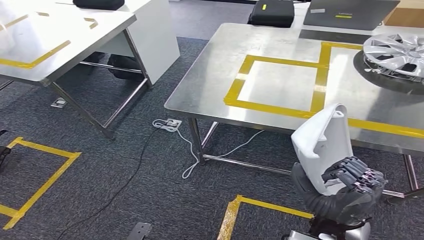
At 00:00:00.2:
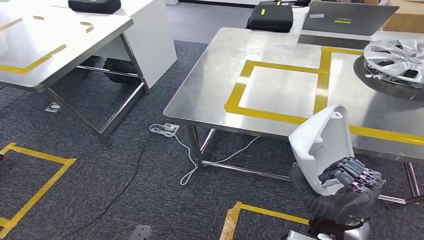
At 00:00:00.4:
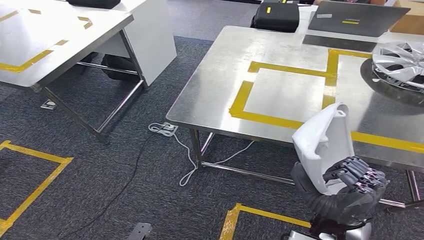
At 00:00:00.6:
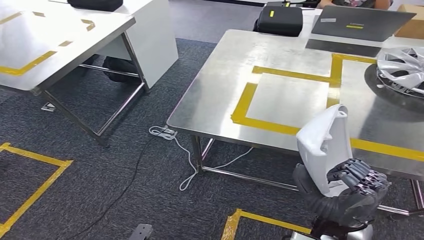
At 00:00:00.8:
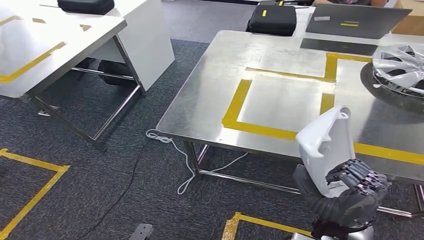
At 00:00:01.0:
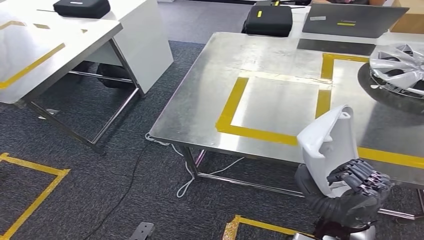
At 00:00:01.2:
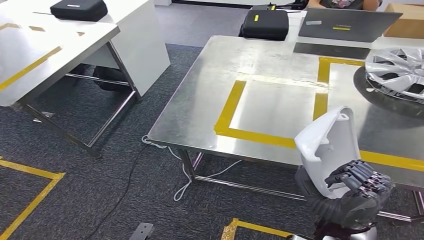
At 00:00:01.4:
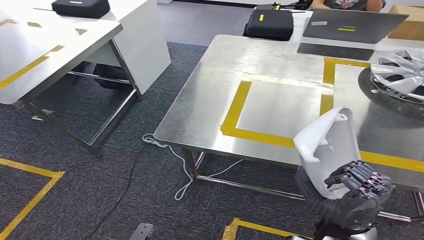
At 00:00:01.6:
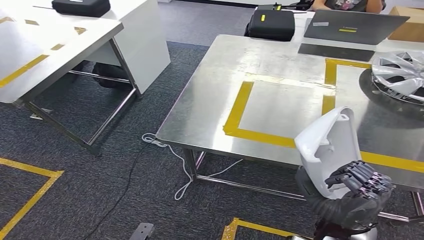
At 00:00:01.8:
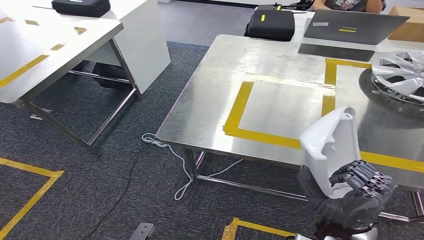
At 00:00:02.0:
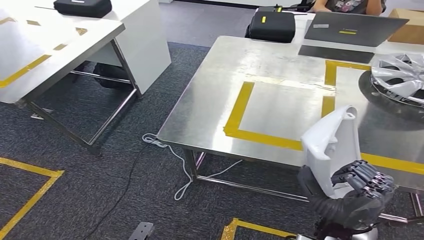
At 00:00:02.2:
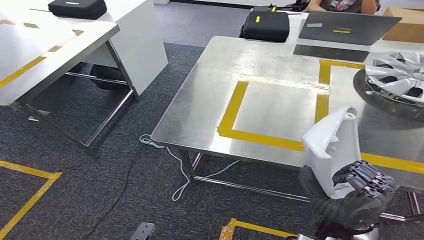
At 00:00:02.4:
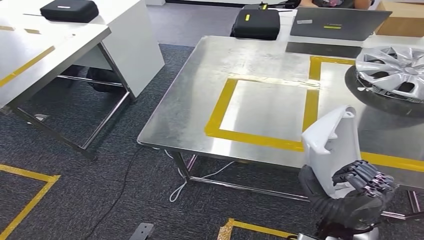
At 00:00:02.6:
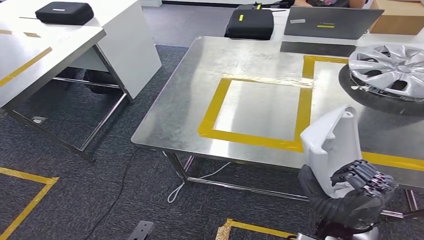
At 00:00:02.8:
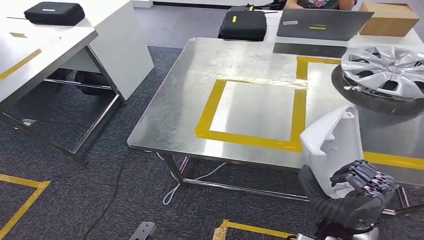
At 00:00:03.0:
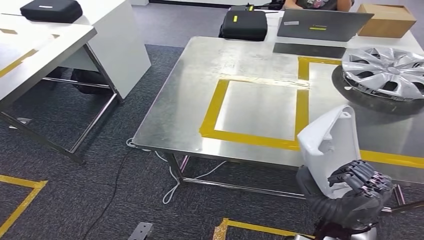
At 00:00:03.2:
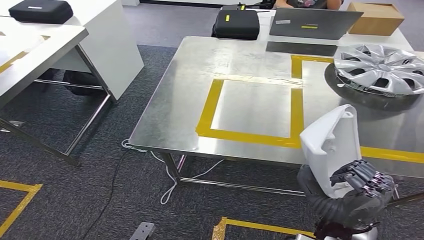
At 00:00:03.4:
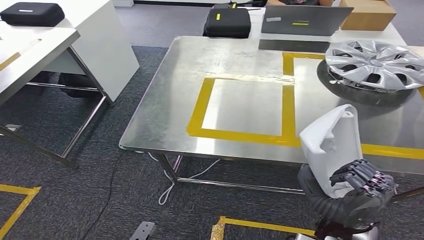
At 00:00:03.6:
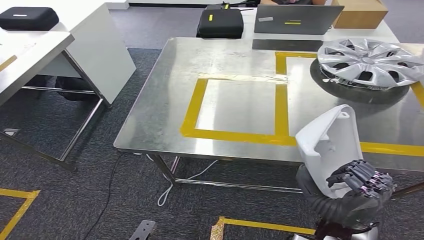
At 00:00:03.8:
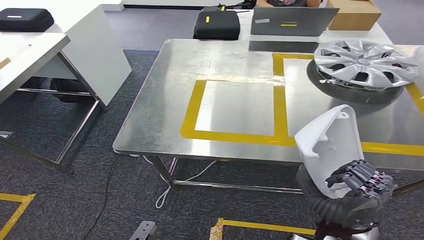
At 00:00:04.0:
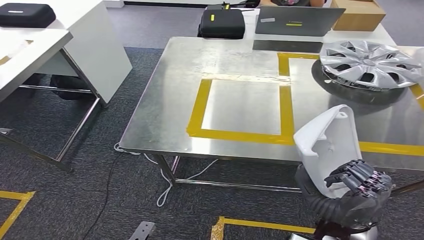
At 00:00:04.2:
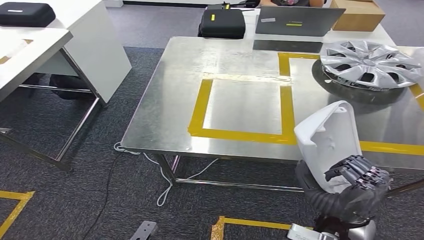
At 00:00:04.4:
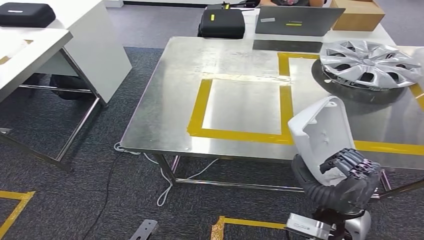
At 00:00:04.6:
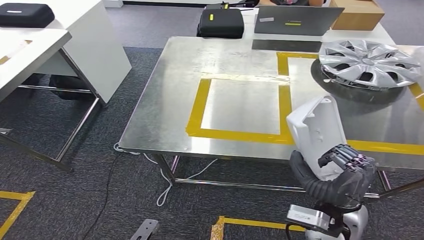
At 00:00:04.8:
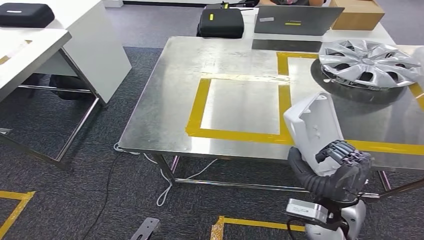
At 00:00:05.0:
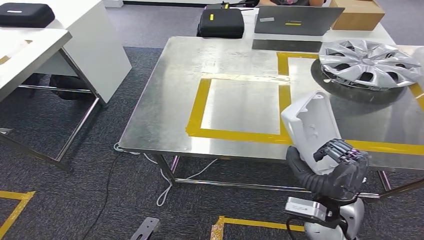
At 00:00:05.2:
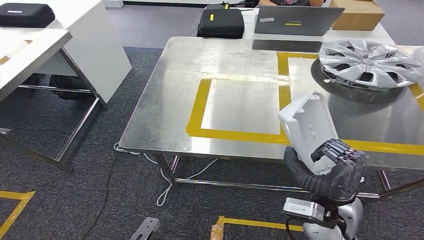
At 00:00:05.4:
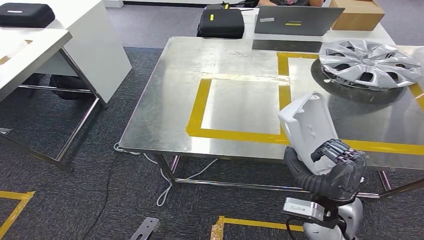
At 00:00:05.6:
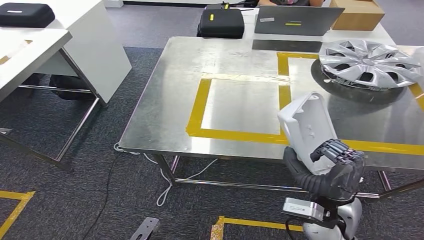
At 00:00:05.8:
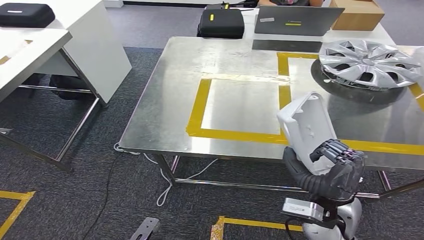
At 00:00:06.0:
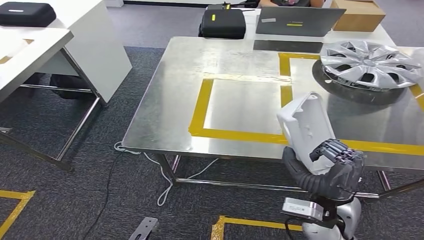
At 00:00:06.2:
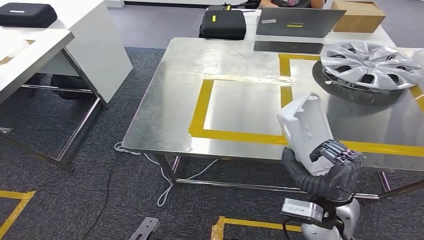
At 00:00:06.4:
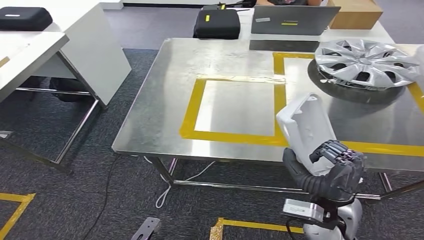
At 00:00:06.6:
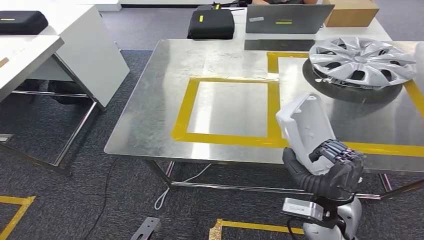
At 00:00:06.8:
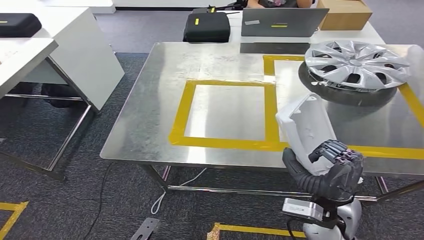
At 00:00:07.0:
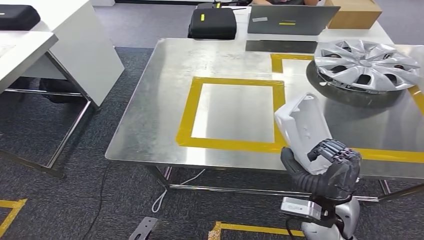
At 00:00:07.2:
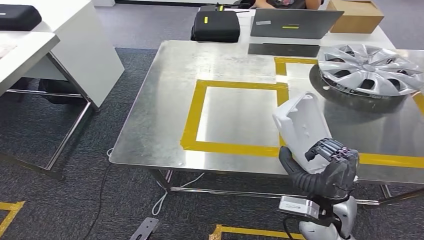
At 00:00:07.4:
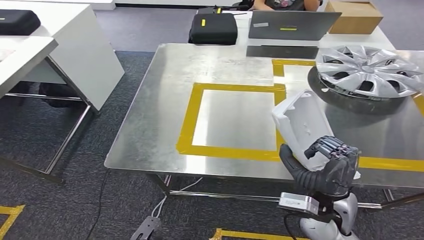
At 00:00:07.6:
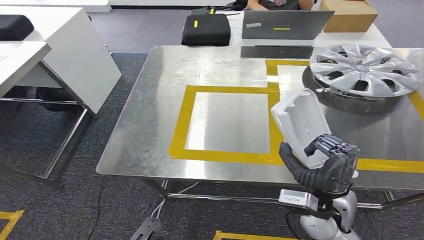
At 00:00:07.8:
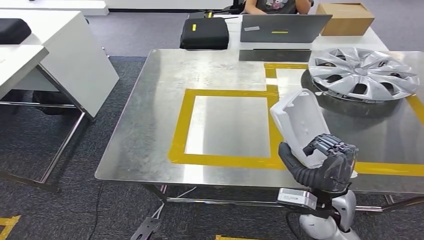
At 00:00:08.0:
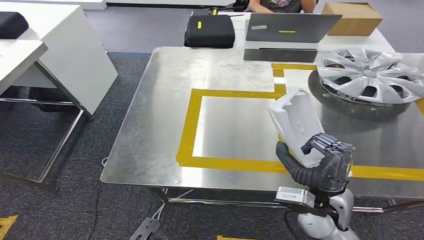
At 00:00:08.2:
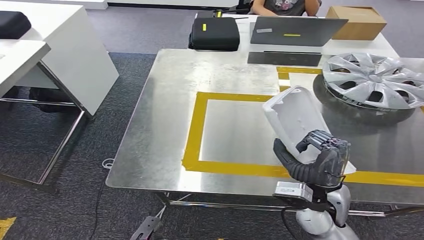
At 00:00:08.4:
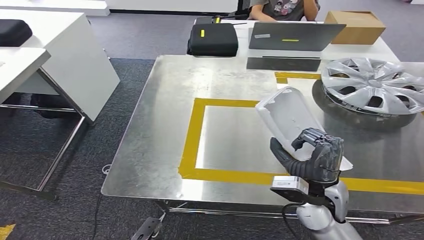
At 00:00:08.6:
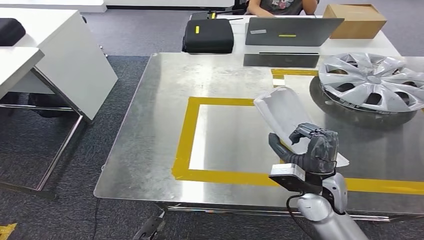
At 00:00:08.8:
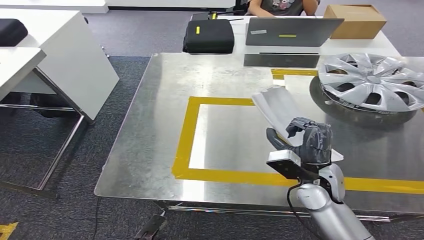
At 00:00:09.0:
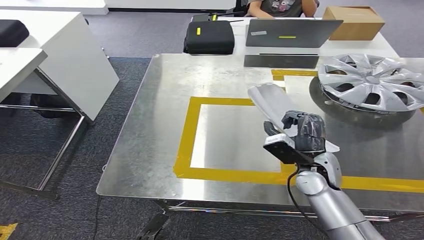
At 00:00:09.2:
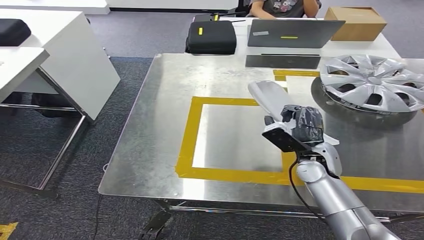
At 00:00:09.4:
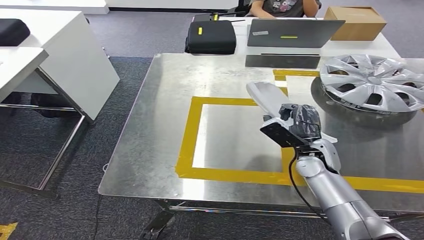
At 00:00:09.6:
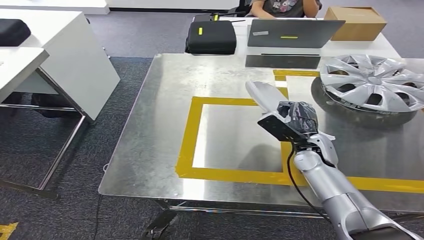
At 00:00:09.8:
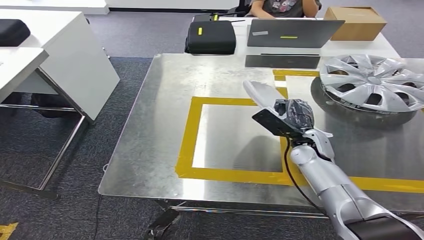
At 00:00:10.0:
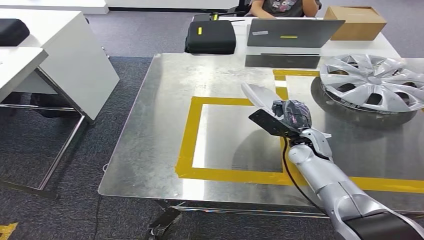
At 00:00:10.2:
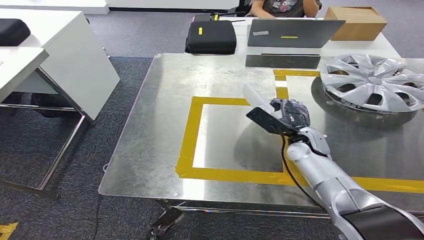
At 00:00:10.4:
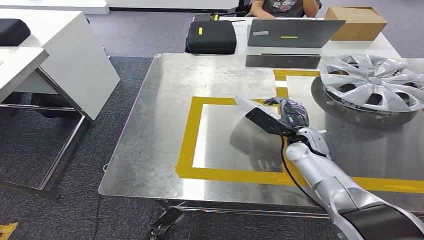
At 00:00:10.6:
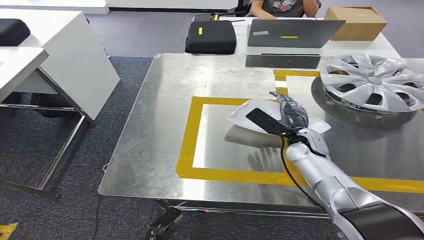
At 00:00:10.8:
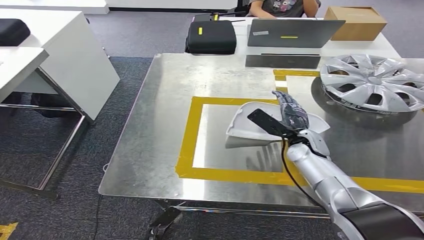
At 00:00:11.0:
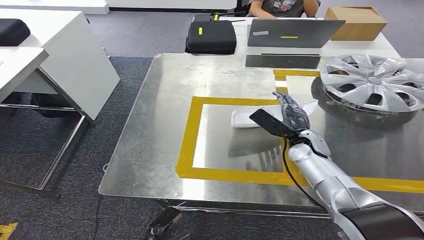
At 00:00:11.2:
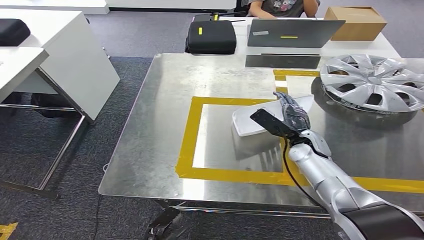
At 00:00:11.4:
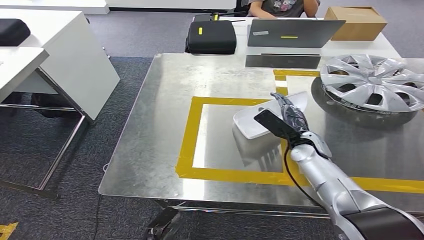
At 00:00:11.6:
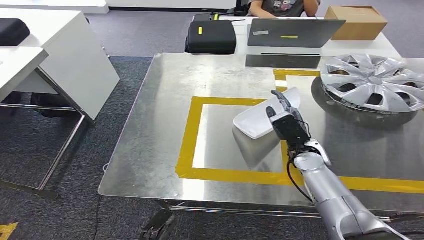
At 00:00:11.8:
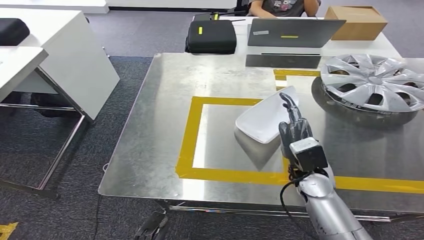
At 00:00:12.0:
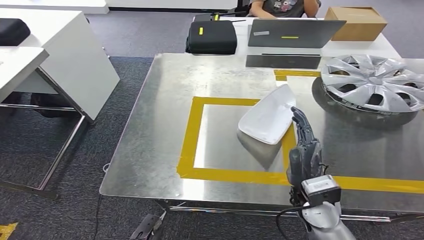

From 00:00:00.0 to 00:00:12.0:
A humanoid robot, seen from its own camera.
From 00:00:04.4 to 00:00:06.0: The hands make only small movements.
From 00:00:09.0 to 00:00:10.4: The right hand is displaced forward by approximately 10 cm.
From 00:00:10.4 to 00:00:12.0: The right hand travels backward by some 15 cm.
